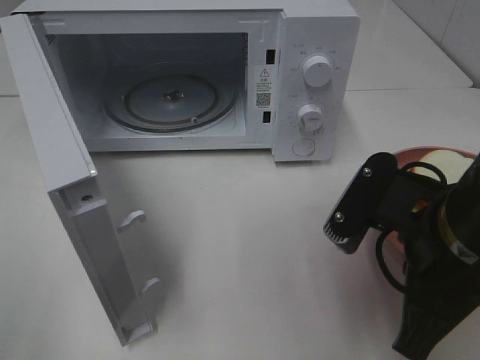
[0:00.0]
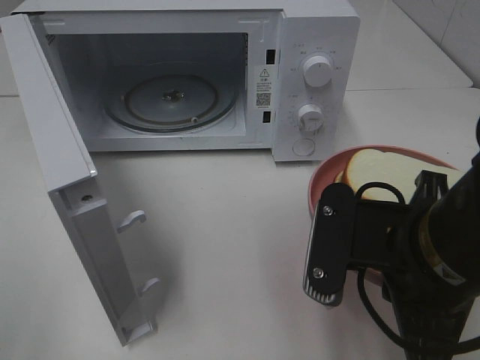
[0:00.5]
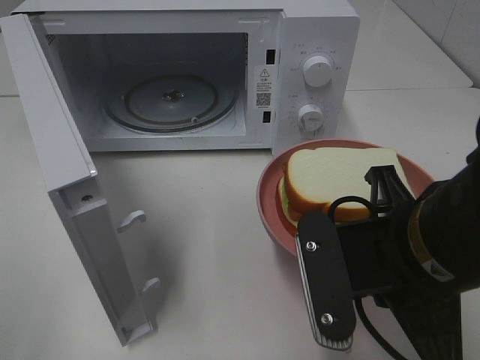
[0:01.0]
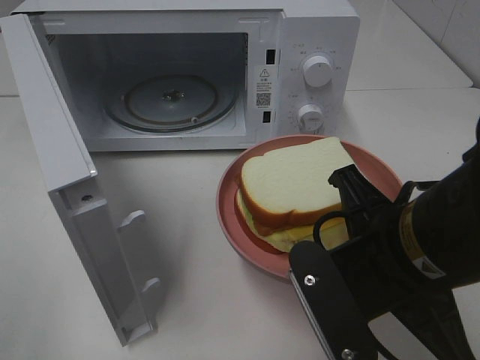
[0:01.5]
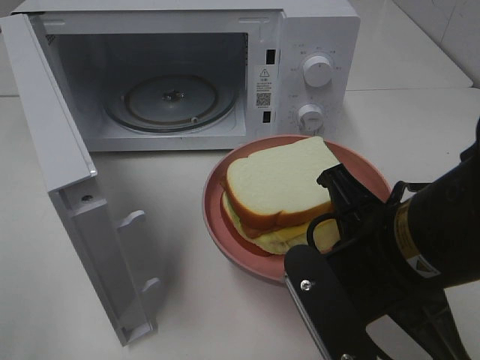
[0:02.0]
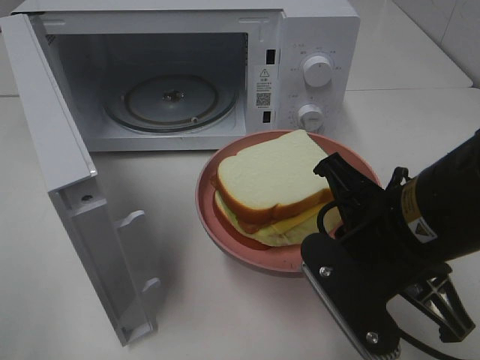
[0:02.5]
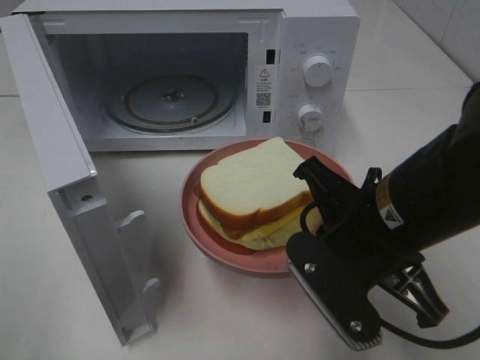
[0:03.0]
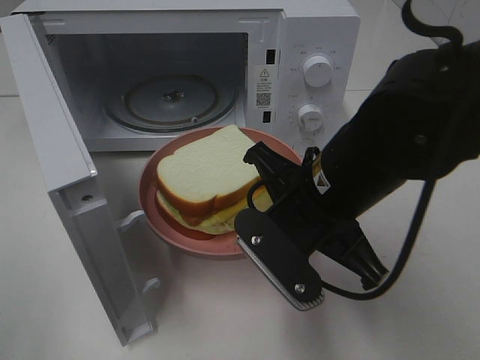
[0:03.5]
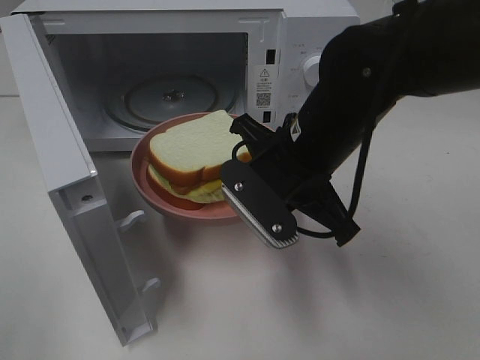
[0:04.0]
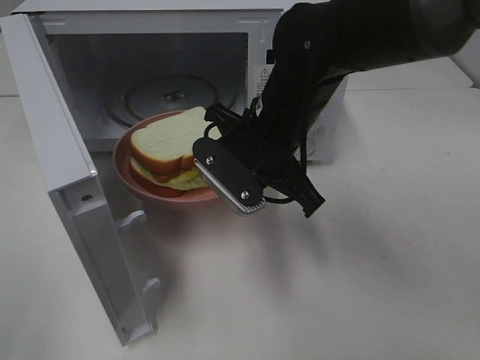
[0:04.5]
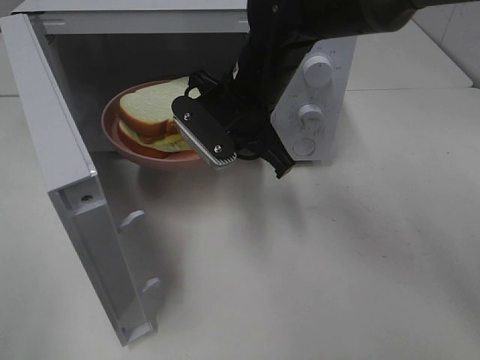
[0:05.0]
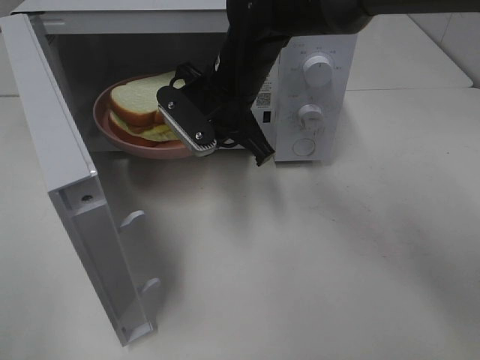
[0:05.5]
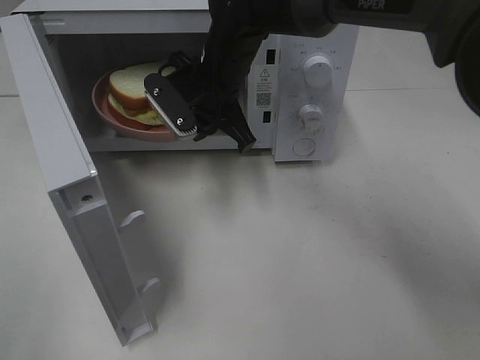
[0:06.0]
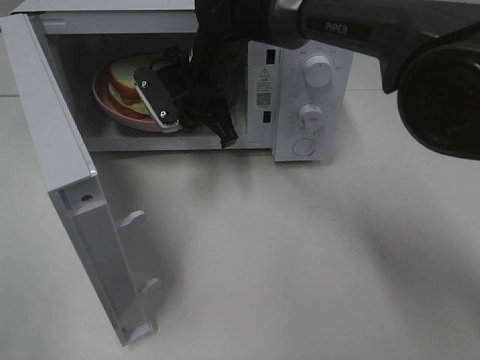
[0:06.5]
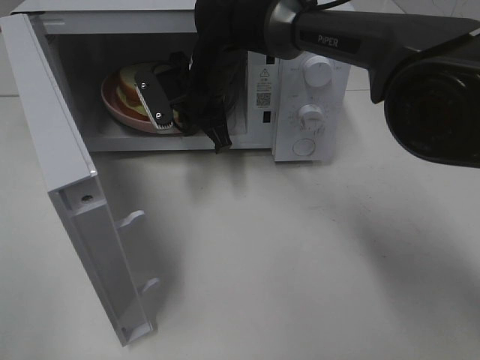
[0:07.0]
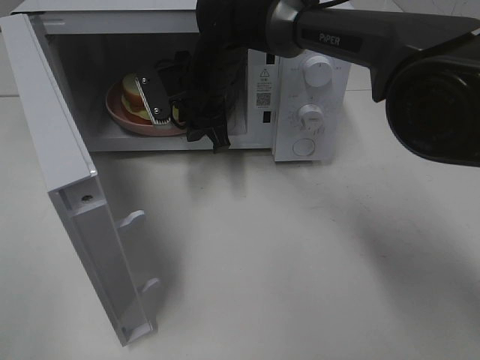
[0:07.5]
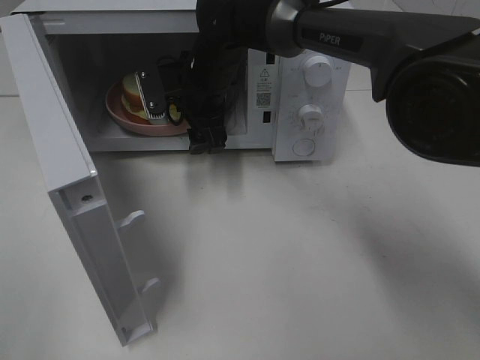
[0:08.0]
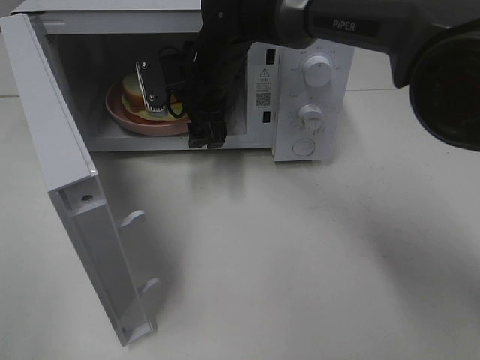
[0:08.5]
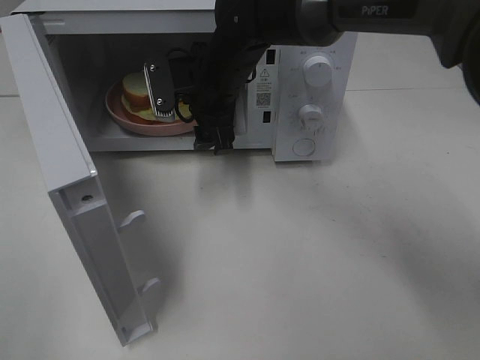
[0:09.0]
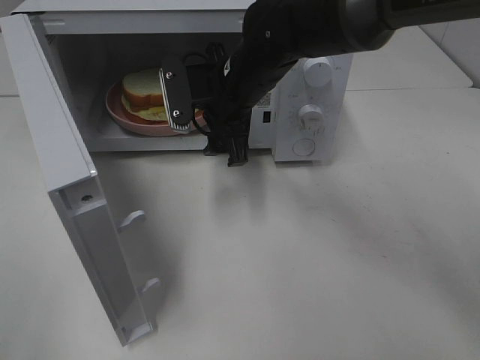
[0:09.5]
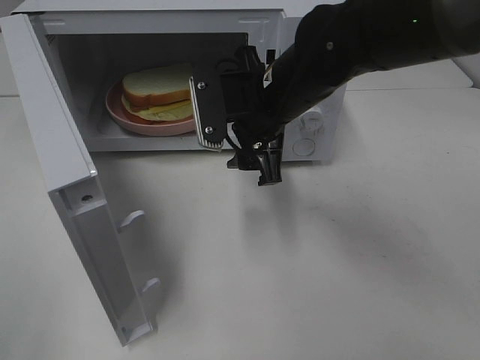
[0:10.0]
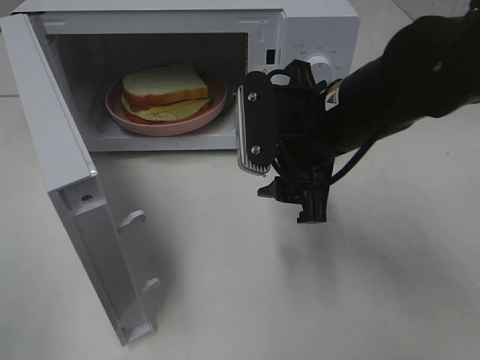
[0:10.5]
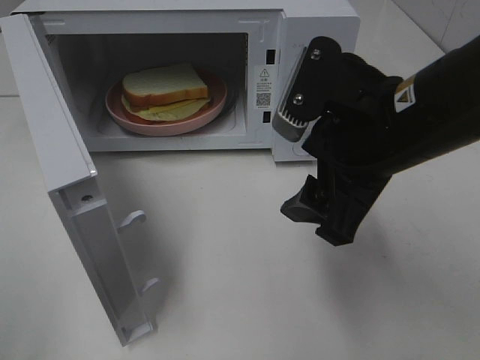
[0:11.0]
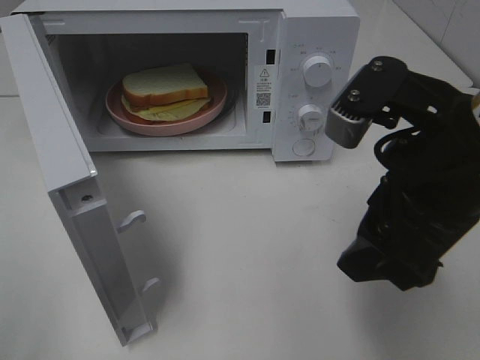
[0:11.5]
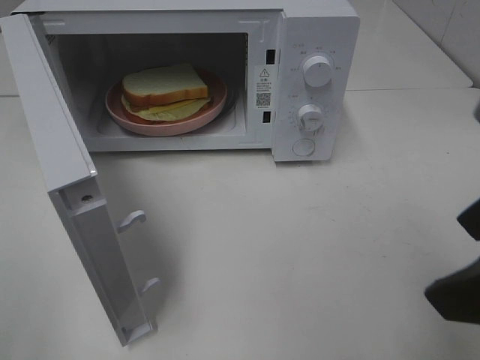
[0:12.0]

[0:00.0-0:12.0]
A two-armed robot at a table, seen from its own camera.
Task of the whole recording: Heat Sandwich.
Step, 0:00.0 to 0:08.5: Right hand: place the plate in the microwave.
0:02.0 to 0:04.0: The right gripper travels forward by approximately 10 cm.
0:04.0 to 0:06.0: The right gripper is displaced forward and to the left by roughly 15 cm.
0:06.0 to 0:08.0: The right gripper opens.
0:08.0 to 0:10.0: The right gripper goes roughly 15 cm backward and to the right.
0:10.0 to 0:12.0: The right gripper is displaced backward, to the right and upward by approximately 30 cm.

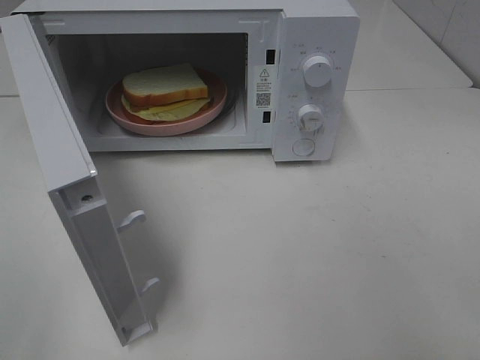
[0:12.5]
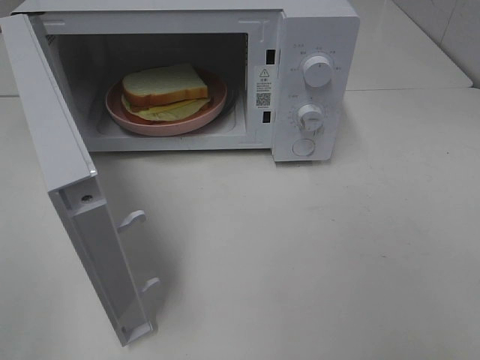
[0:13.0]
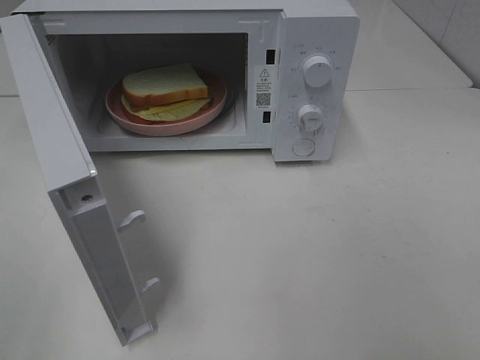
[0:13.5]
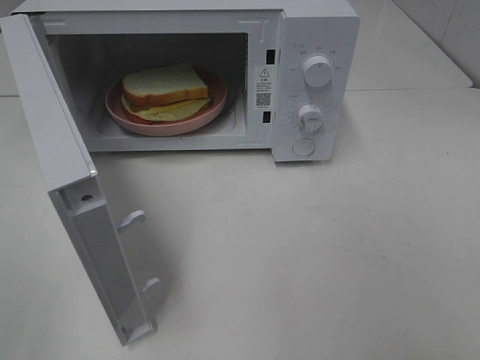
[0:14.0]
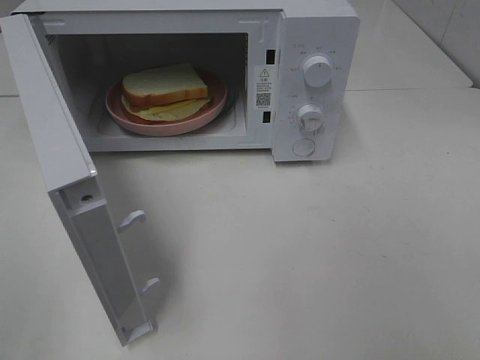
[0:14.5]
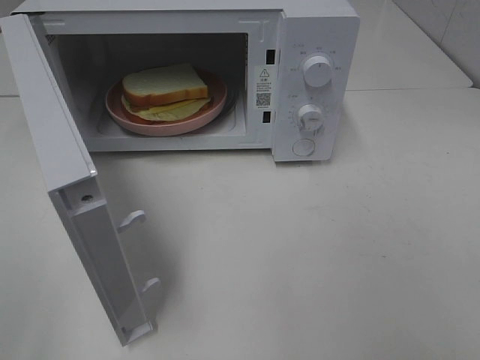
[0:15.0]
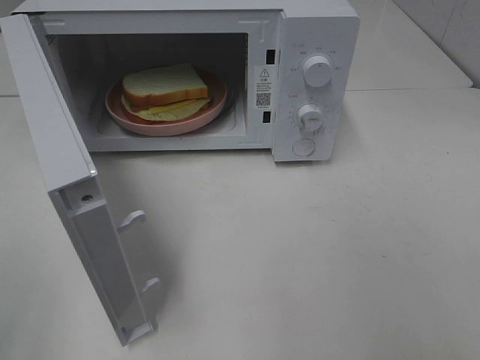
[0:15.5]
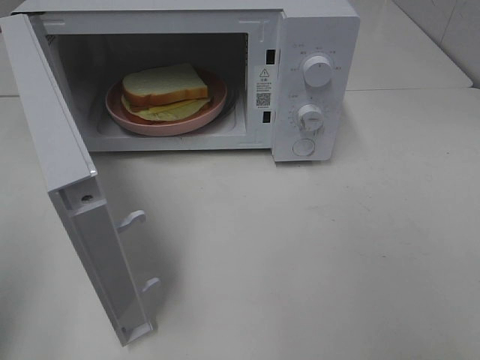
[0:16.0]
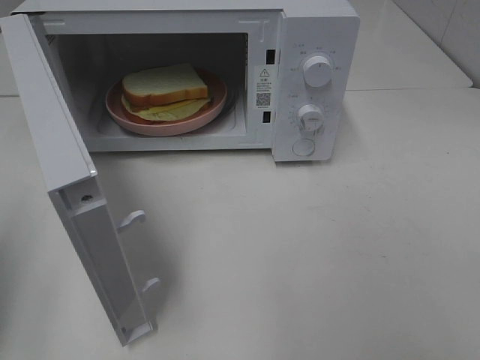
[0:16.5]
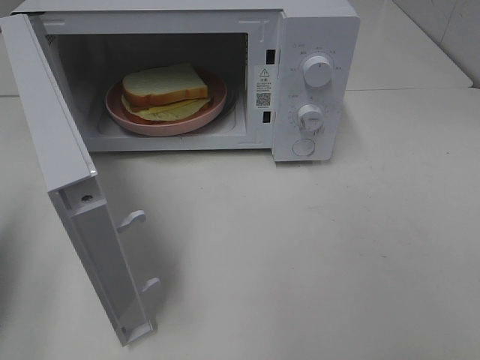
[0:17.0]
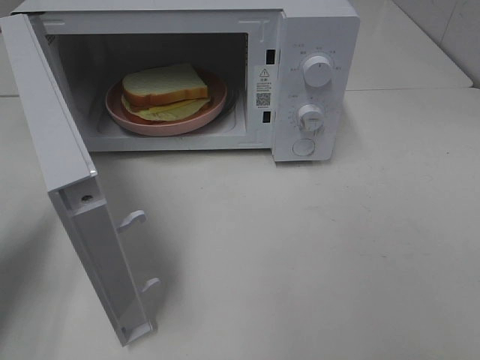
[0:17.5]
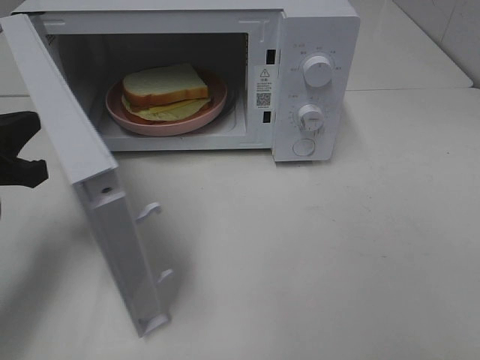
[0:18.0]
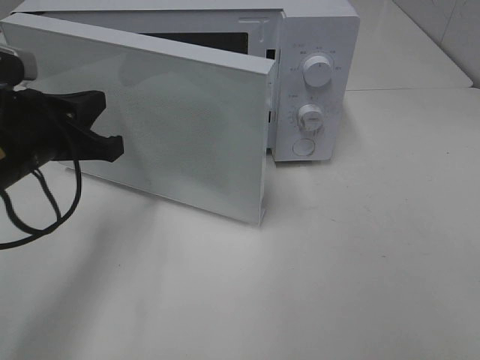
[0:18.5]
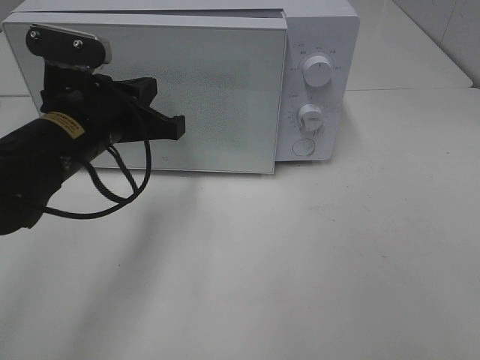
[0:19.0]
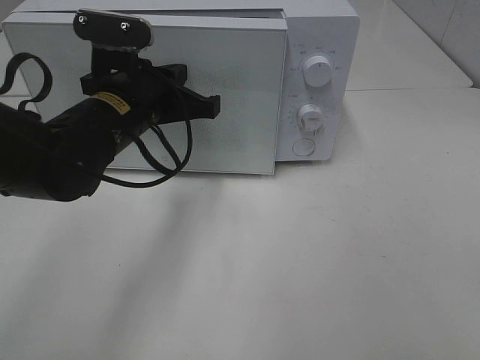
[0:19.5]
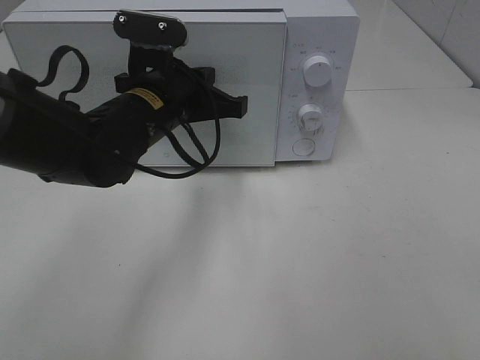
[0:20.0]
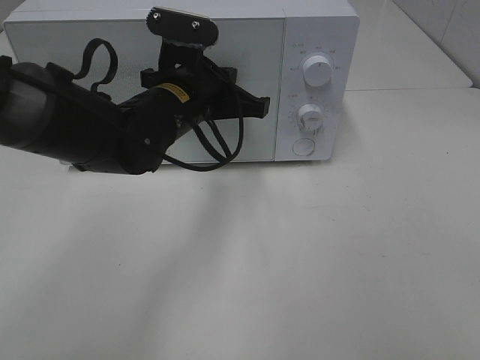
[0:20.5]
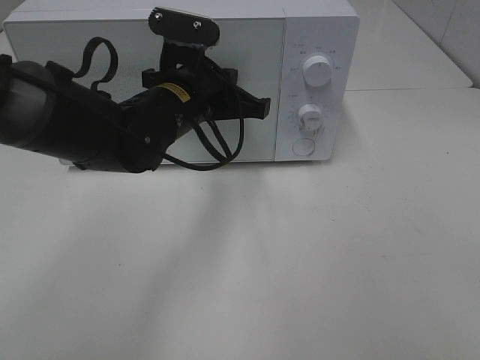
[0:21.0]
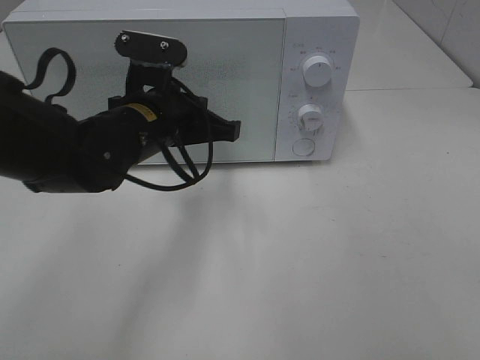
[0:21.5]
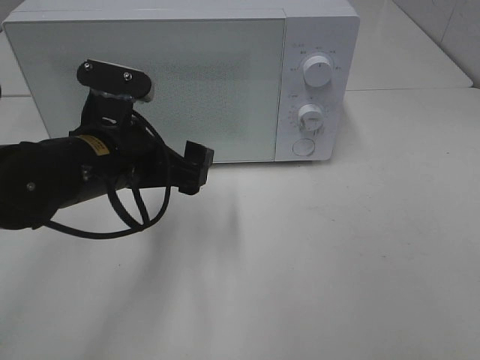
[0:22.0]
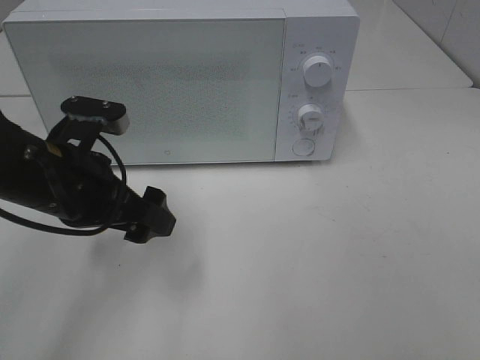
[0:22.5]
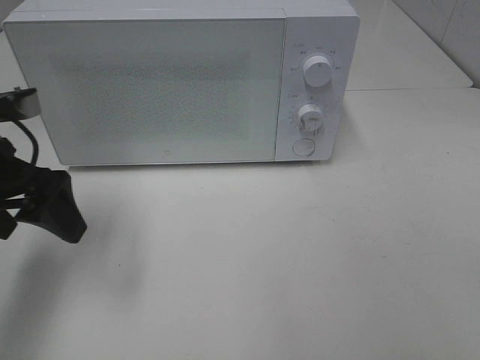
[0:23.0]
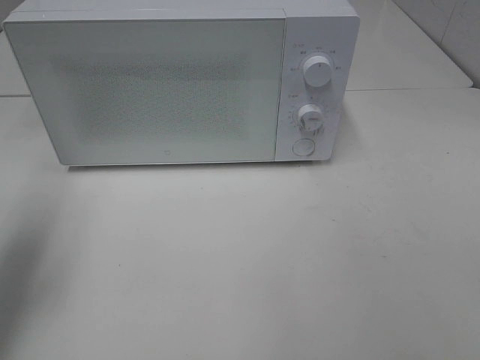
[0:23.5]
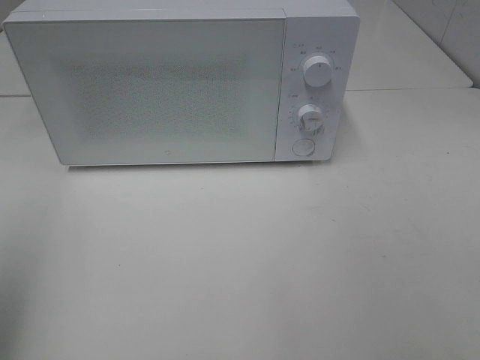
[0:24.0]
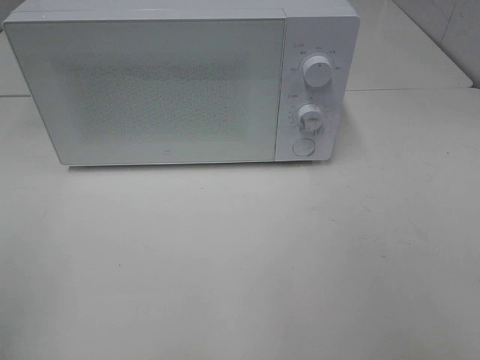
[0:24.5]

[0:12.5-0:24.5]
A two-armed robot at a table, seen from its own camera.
Task of the whole recording: Heat Sandwich.
Step, 0:12.5 to 0:21.0: Left hand: close the microwave door.
0:16.5 to 0:18.5: The left gripper is displaced to the right, forward and downward by roughly 20 cm.
0:18.5 to 0:20.5: The left gripper moves to the right and forward, some 15 cm.
0:20.5 to 0:22.5: The left gripper shifts approximately 15 cm to the left and backward, and opens.
0:22.5 to 0:24.5: The left gripper heads backward, to the left and upward, covering about 30 cm.

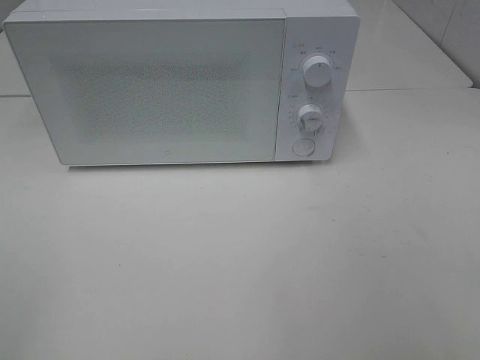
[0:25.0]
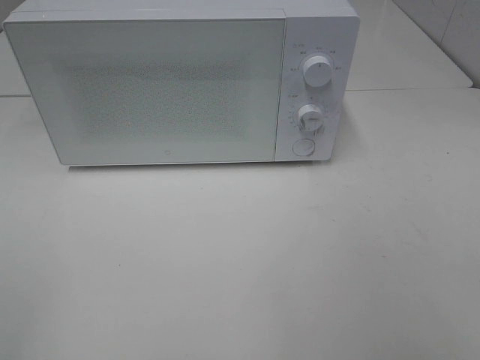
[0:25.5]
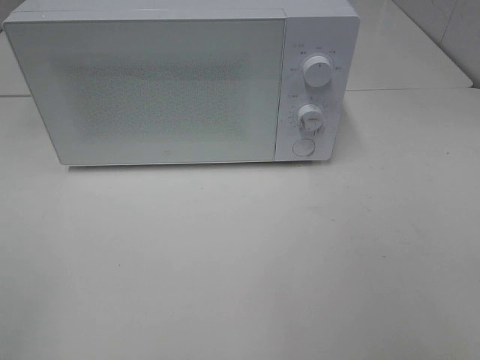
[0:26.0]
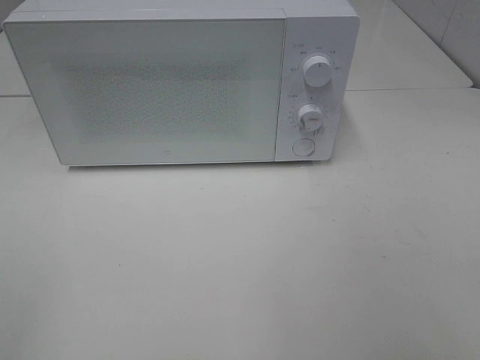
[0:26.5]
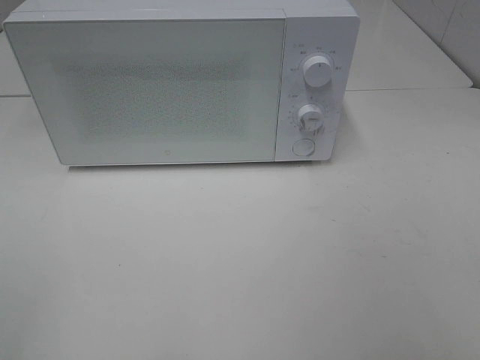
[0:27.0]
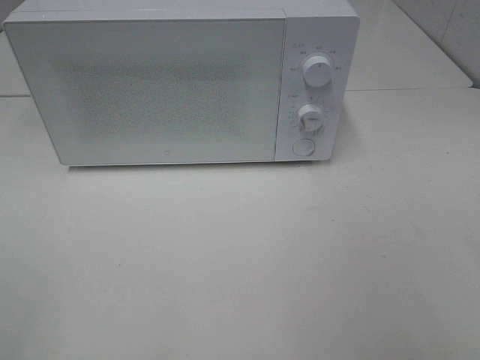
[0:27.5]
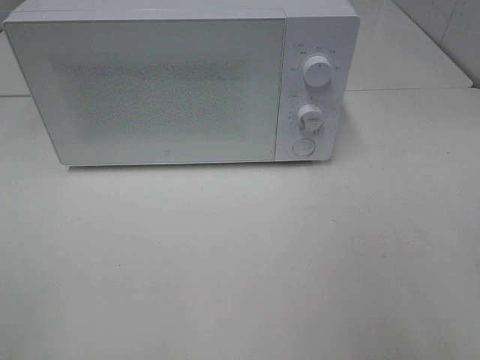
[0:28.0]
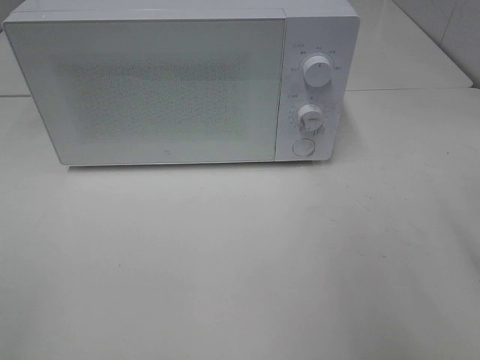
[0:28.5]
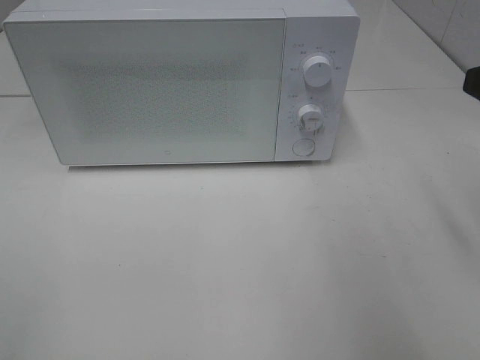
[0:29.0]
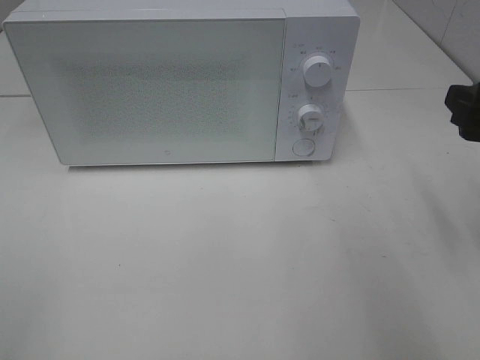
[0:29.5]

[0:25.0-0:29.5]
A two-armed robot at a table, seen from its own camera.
Task of the whole recording: Heat Sandwich.
0:27.0 to 0:29.5: The right gripper is displaced forward by about 20 cm.
